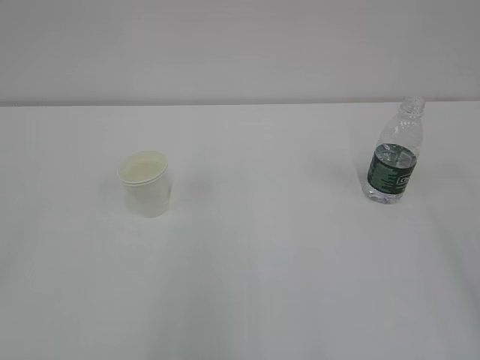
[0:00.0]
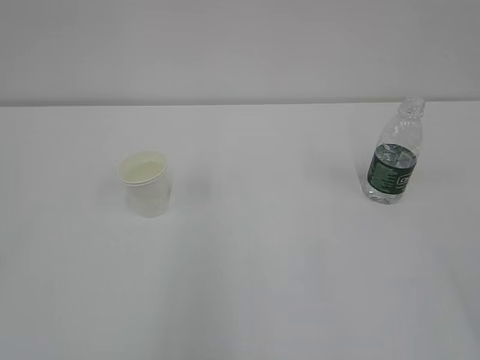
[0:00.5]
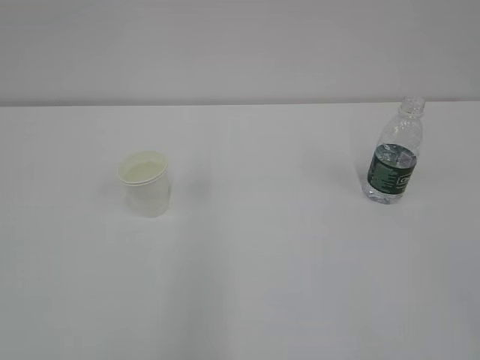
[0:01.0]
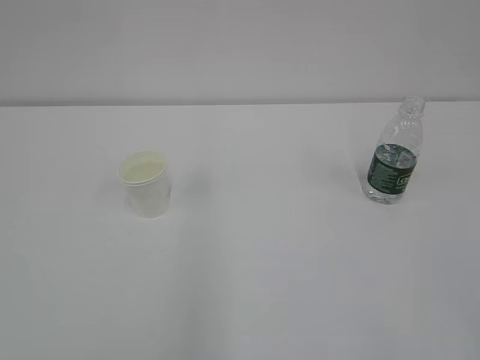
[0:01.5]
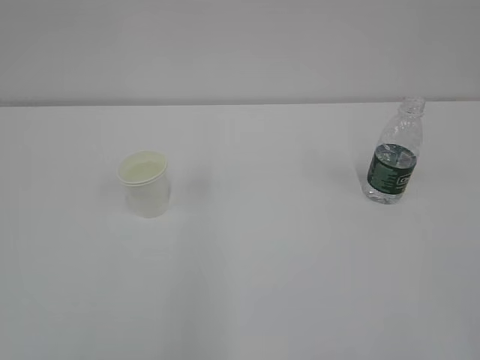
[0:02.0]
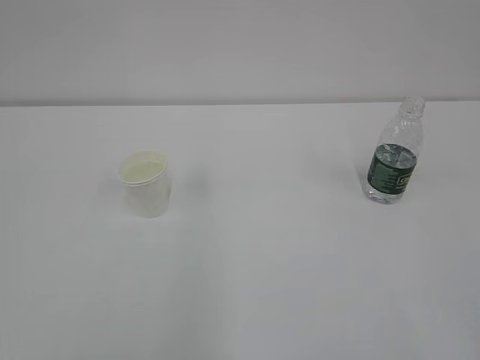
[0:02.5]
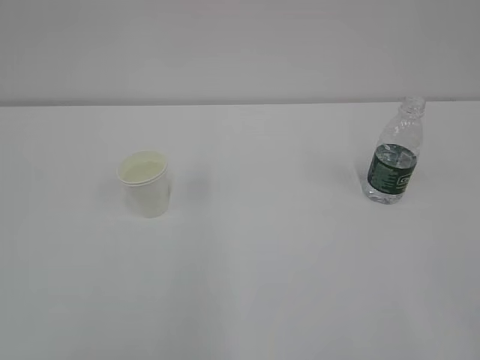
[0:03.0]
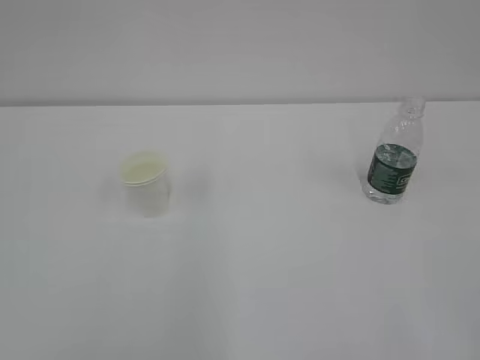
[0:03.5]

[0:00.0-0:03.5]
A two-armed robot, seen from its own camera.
0:02.0 to 0:03.5: The two grippers keep their place.
